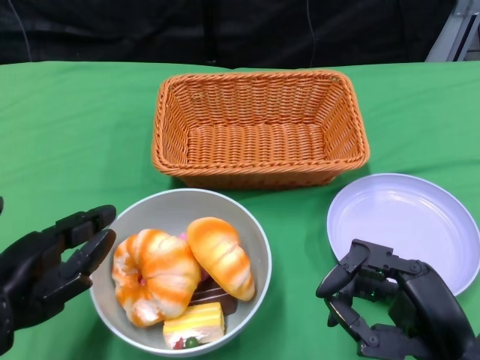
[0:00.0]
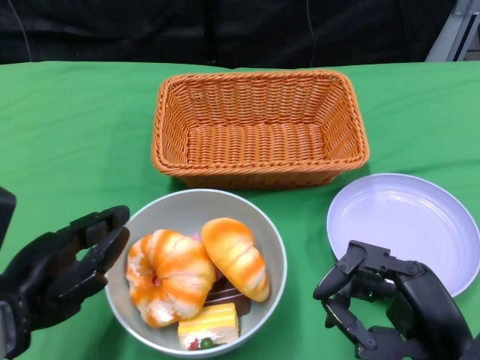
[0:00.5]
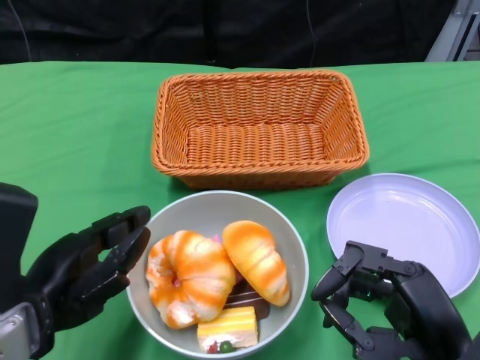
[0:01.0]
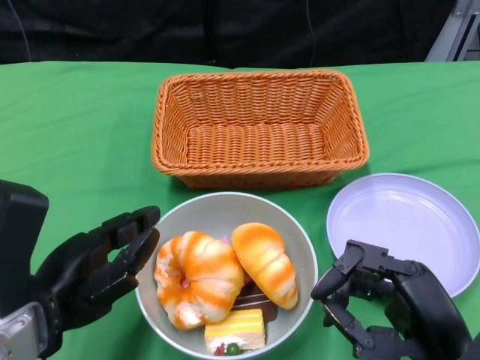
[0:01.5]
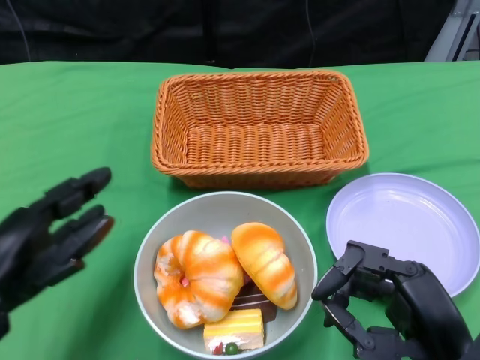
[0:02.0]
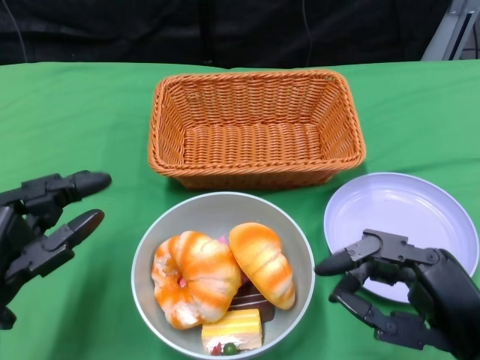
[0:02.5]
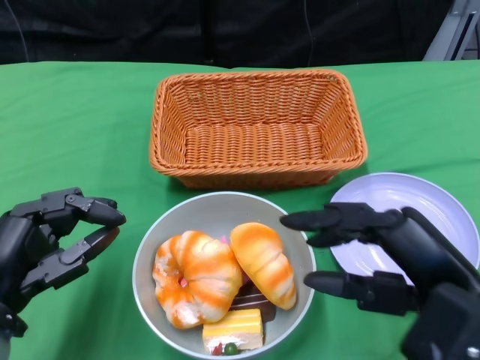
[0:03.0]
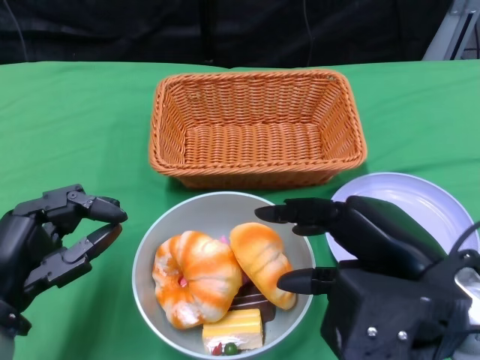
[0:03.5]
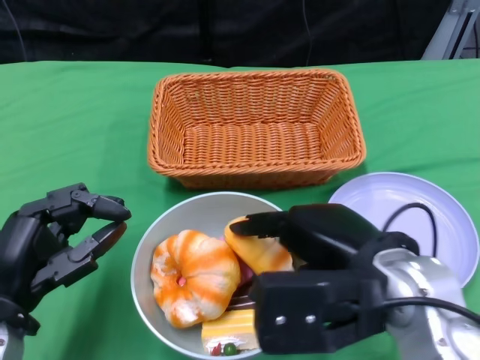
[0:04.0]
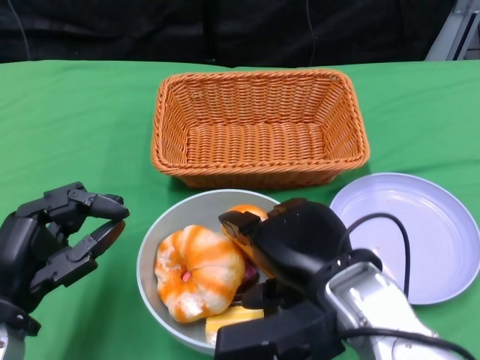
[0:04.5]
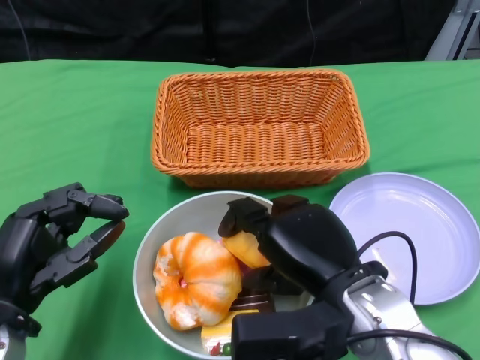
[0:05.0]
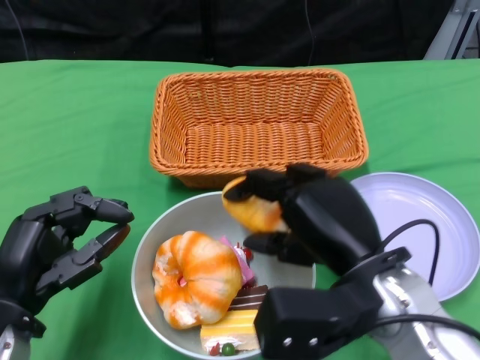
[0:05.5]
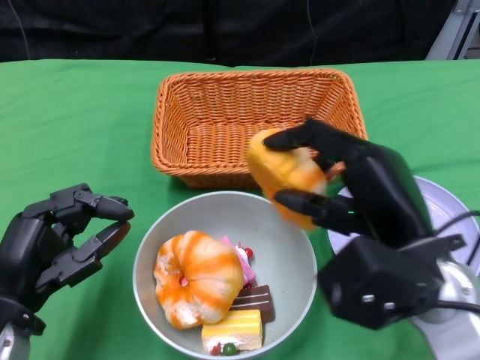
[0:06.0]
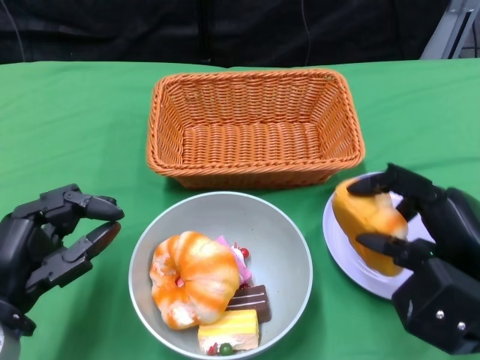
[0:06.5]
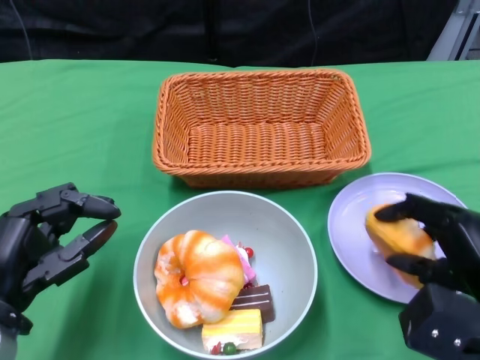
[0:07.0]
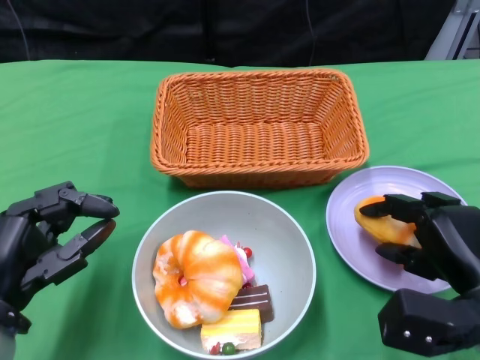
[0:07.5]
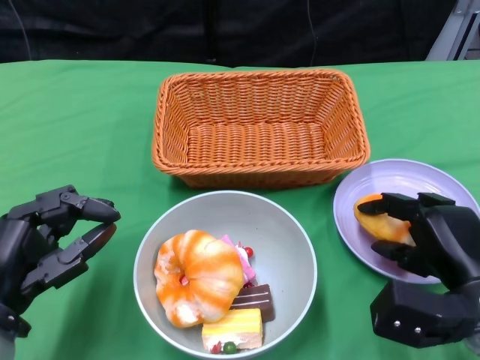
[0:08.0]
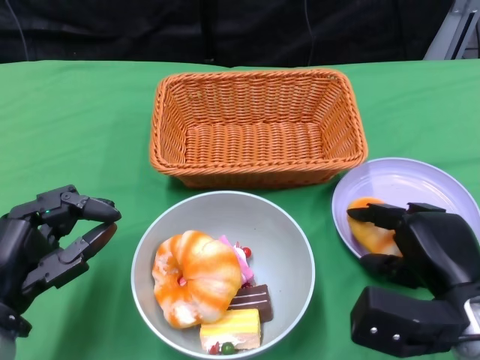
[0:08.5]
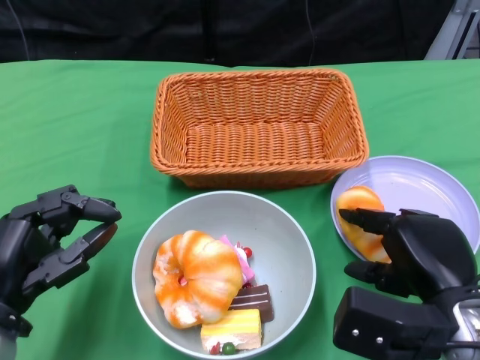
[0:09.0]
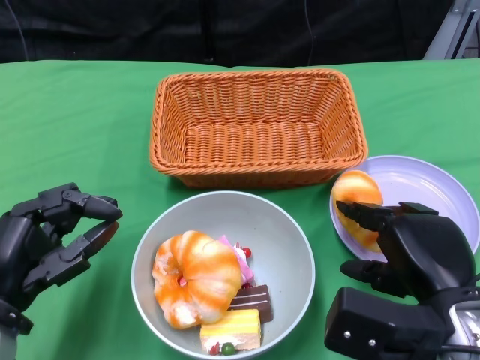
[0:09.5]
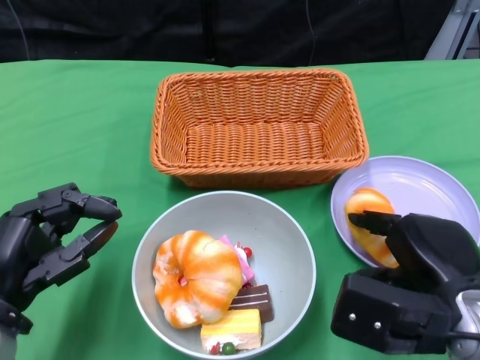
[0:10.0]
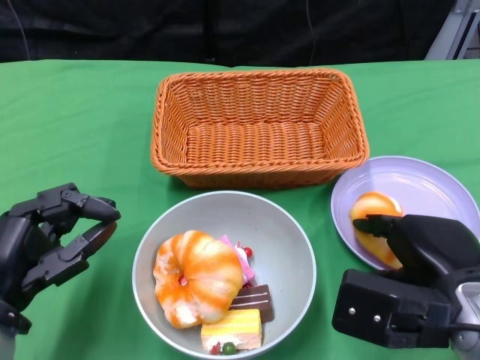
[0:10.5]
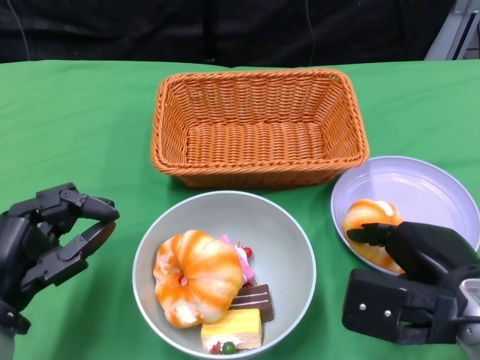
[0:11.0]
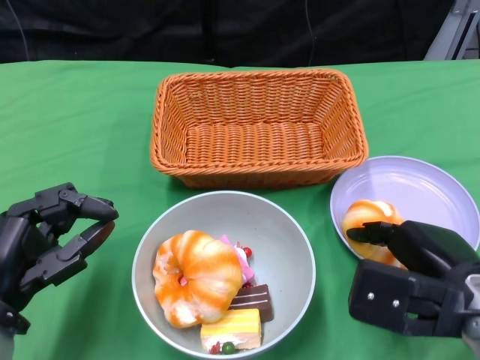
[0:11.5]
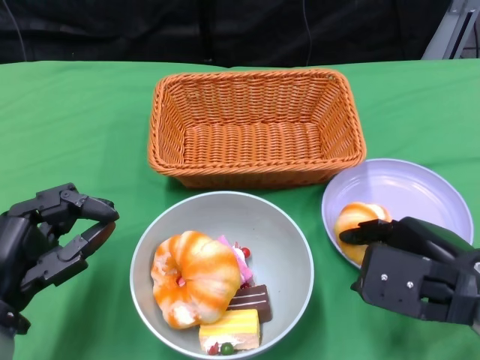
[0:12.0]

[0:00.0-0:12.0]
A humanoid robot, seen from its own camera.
0:02.0 to 0:04.0: The left hand moves approximately 5 cm, while the right hand moves upward, to the left and forward, about 15 cm.
0:06.0 to 0:08.0: The right hand heads downward and to the right, covering some 15 cm.
0:08.0 to 0:10.0: The right hand shifts some 5 cm upward.

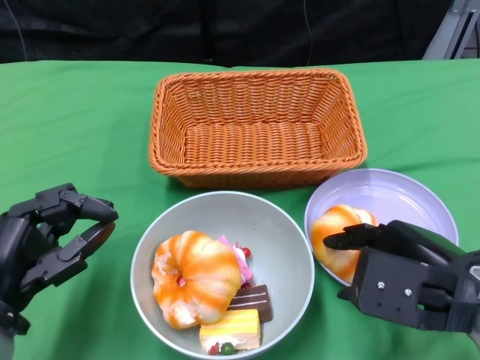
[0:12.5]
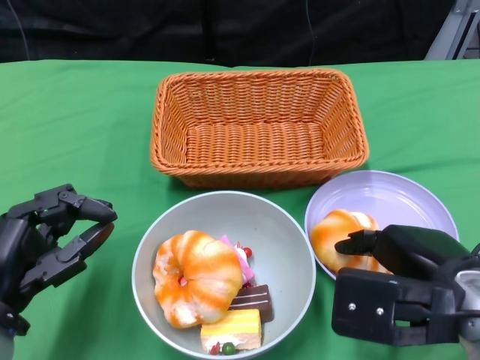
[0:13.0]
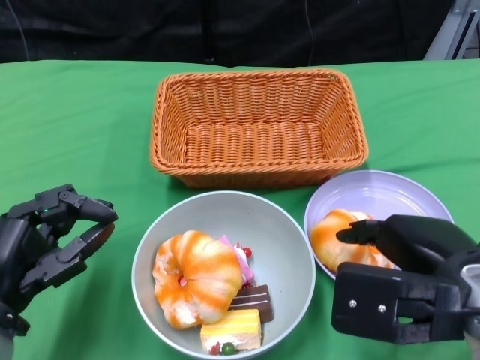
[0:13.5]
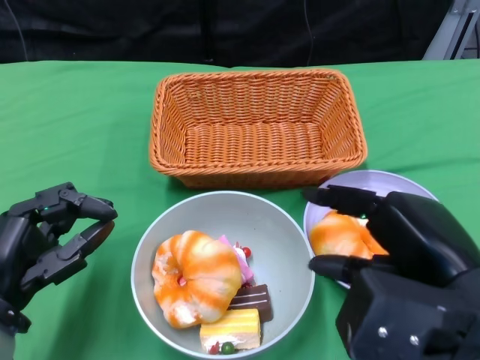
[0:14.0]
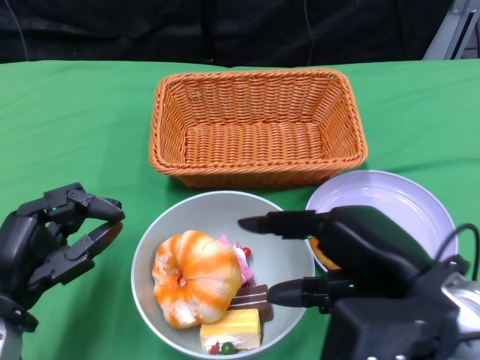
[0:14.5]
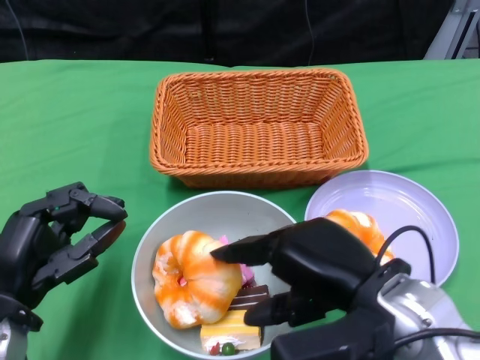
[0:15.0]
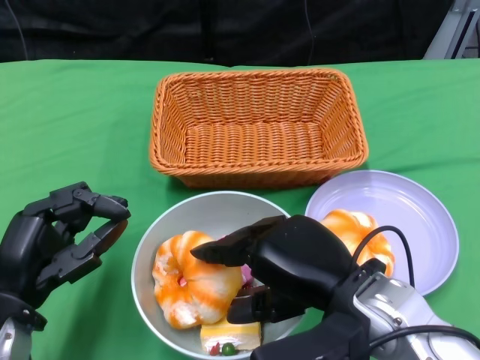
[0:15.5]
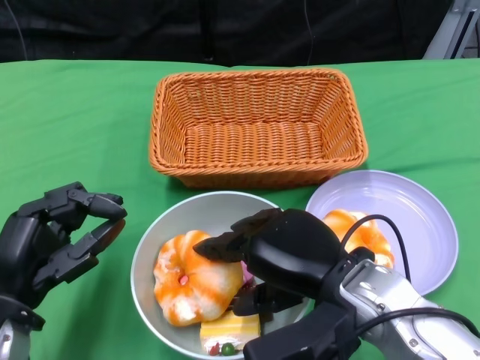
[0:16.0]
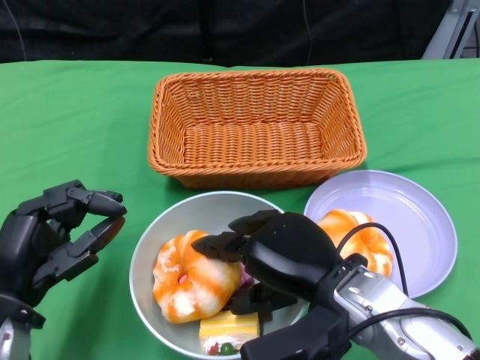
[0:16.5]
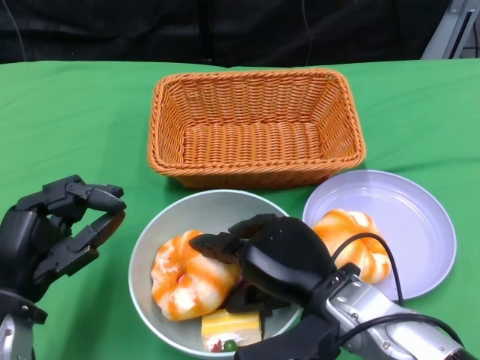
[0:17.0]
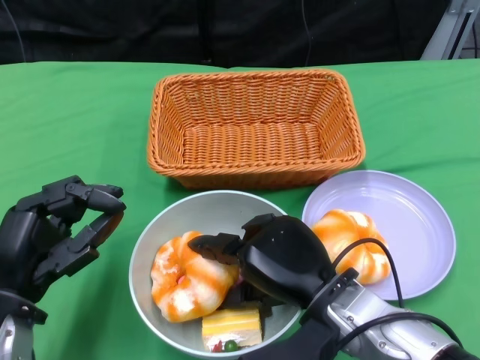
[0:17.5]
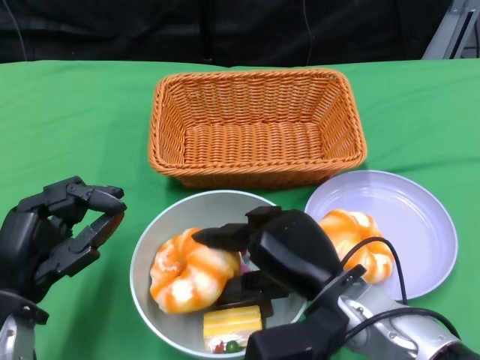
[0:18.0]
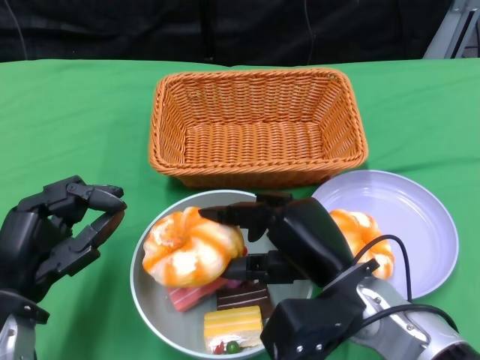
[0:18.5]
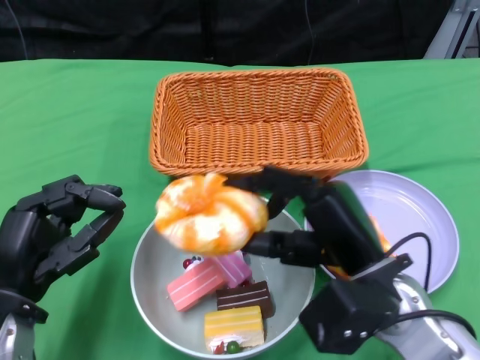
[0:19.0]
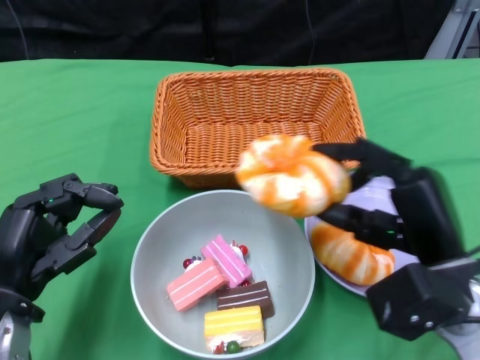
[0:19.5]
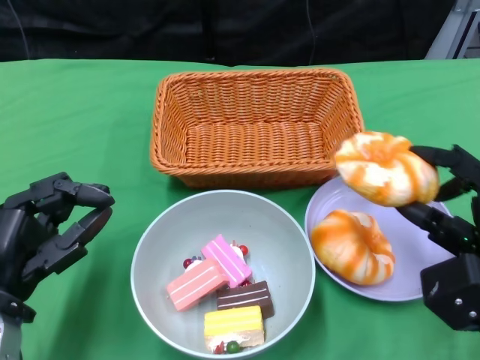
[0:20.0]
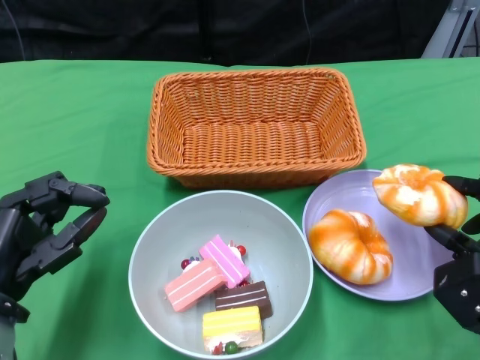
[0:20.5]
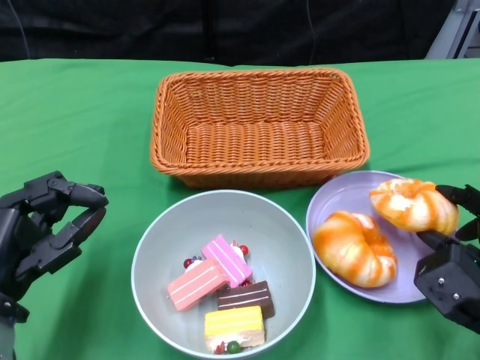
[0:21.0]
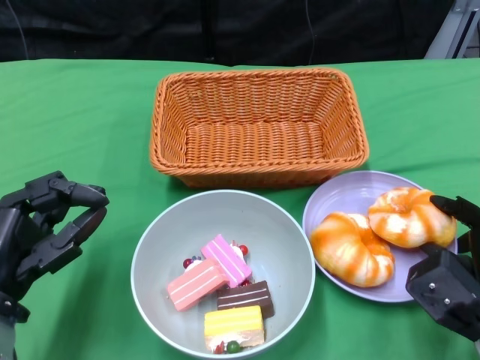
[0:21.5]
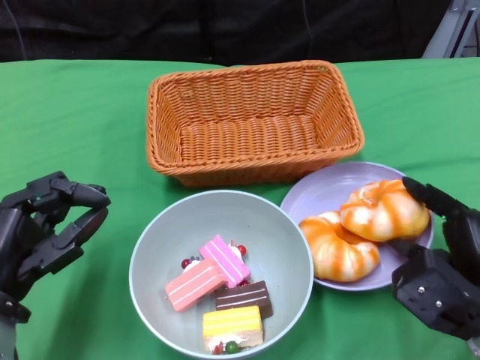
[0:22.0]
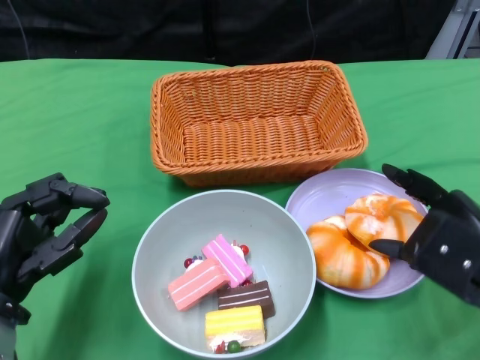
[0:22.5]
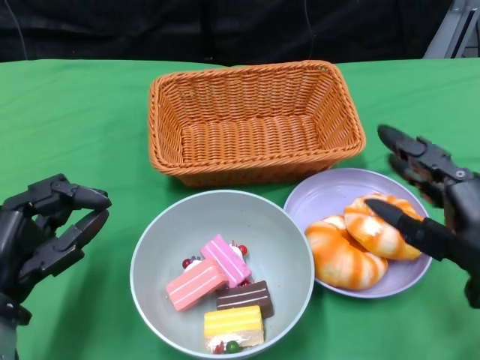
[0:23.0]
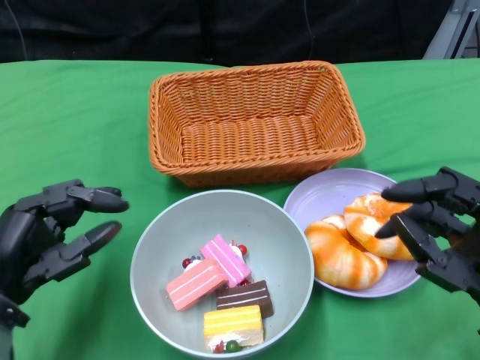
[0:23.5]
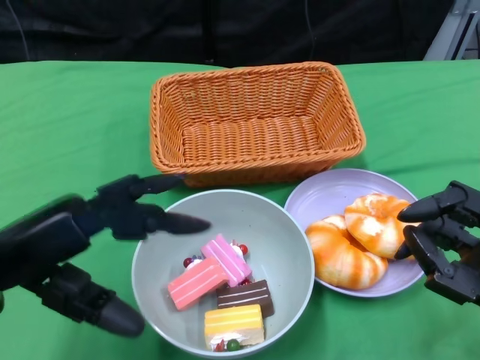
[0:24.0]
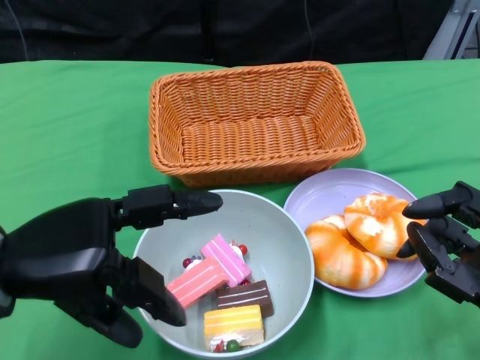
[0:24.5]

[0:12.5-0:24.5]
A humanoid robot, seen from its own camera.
Step, 0:12.5 to 0:22.0: Pick up the bread with the right gripper and place it on the plate.
0:12.5 to 0:14.5: The right hand ends up roughly 5 cm from where it was.
0:14.5 to 0:16.5: The right hand is displaced to the left and downward by approximately 10 cm.
0:18.5 to 0:20.5: The right hand goes about 15 cm to the right.
0:20.5 to 0:22.5: The right hand heads upward, covering approximately 10 cm.
0:22.5 to 0:24.5: The left hand goes about 10 cm upward. Meanwhile the right hand moves about 5 cm.

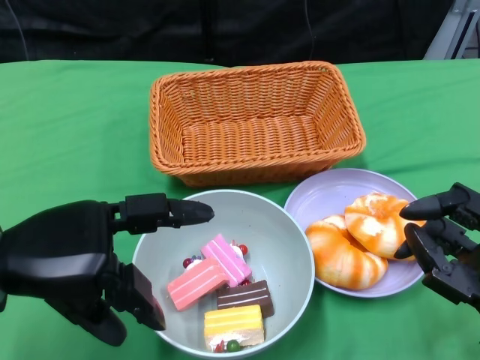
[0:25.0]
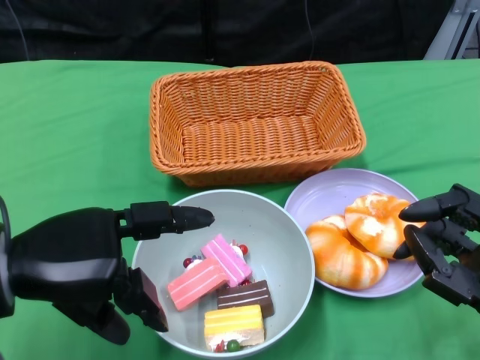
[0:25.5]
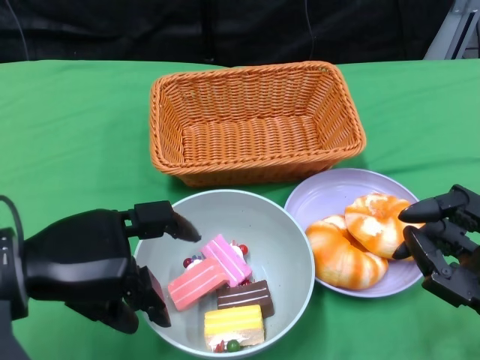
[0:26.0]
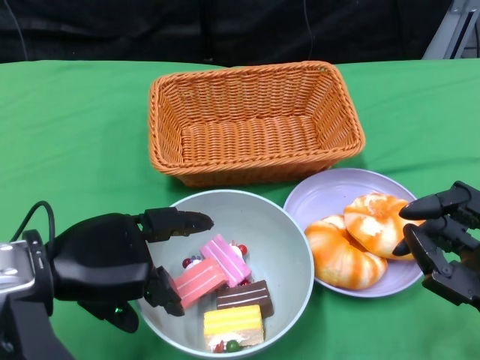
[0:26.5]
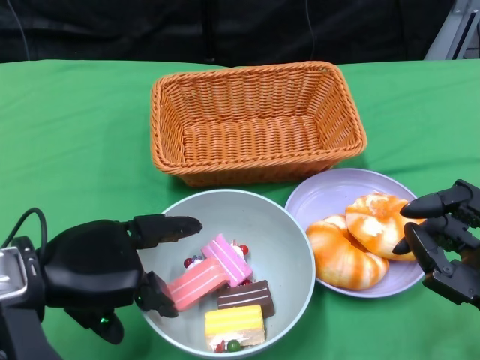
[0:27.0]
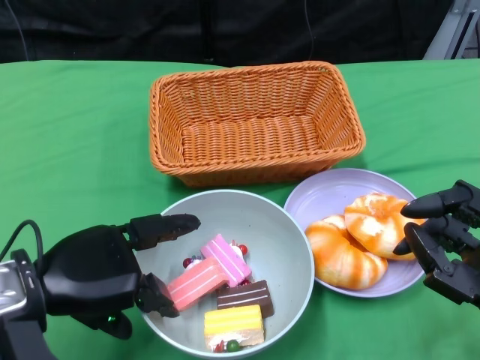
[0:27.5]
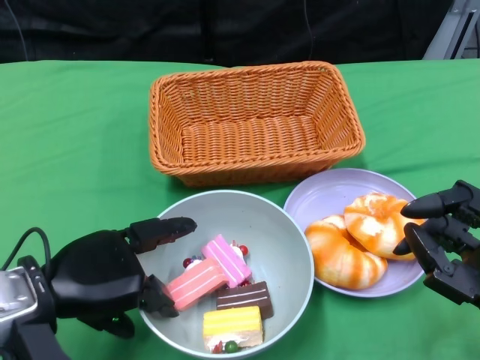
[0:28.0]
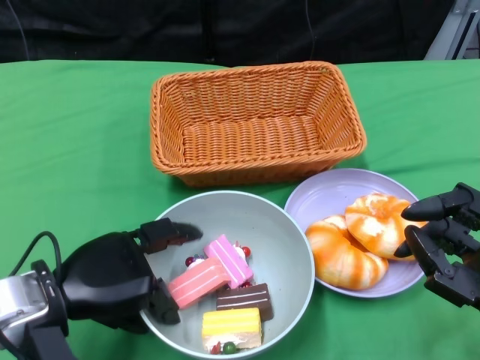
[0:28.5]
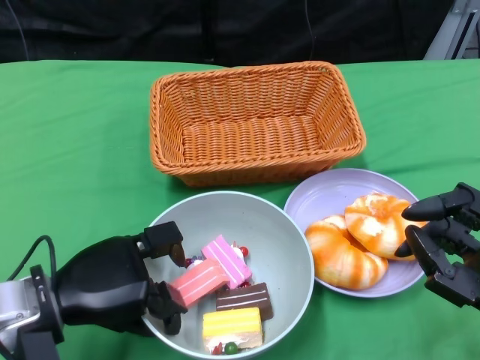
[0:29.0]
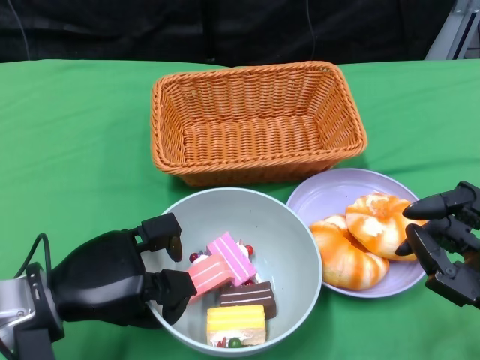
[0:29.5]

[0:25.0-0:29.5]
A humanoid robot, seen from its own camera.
Step, 0:25.0 to 0:29.0: Grasp the bowl with the left gripper.
0:27.0 to 0:29.5: The left hand shifts some 5 cm downward.
